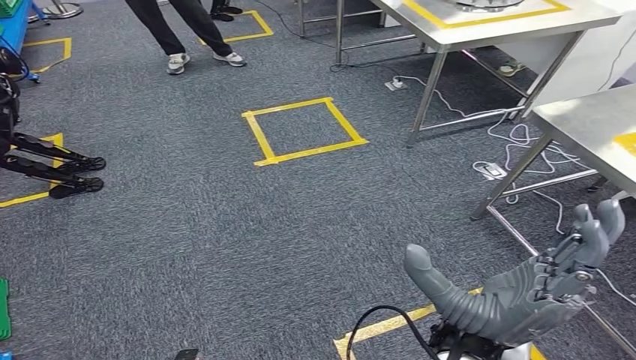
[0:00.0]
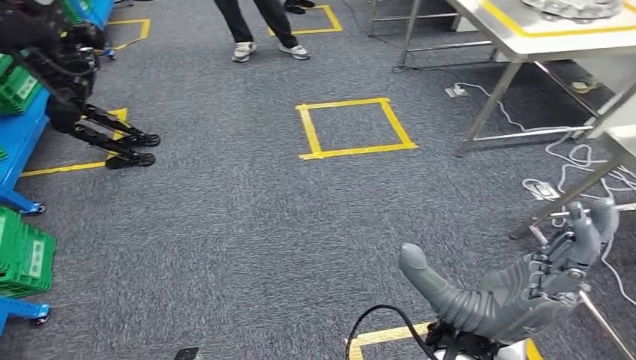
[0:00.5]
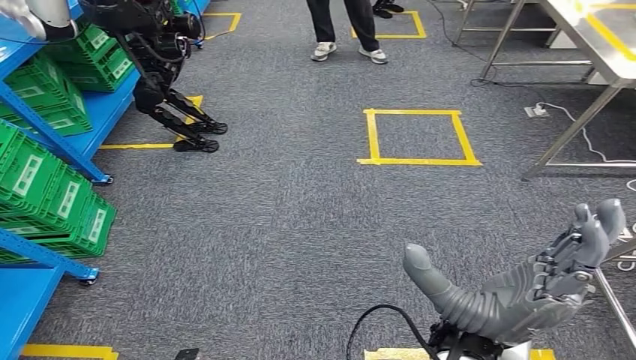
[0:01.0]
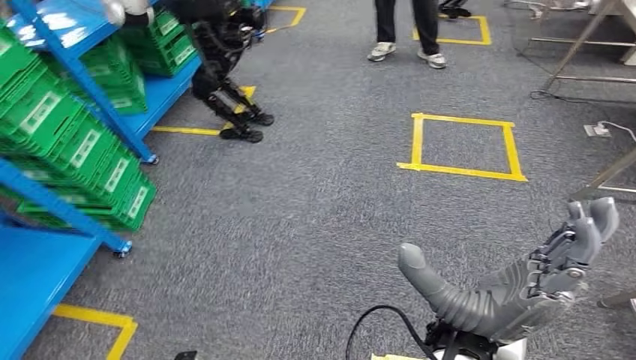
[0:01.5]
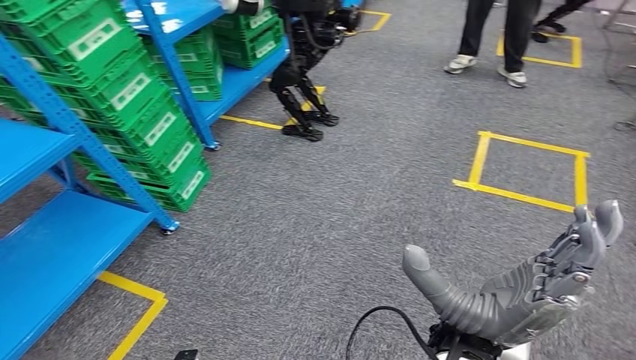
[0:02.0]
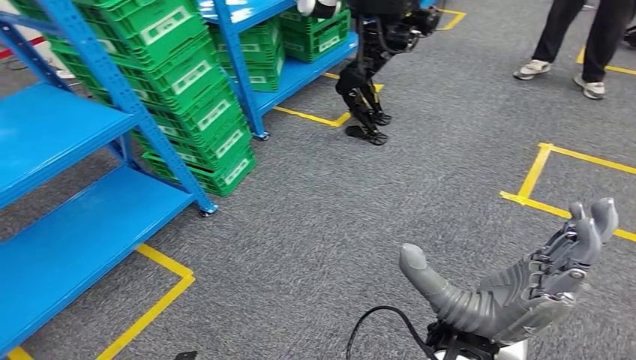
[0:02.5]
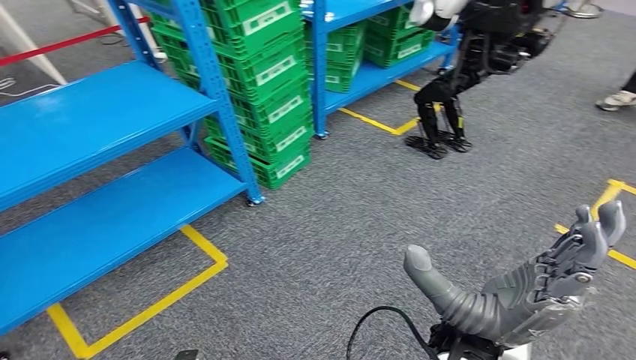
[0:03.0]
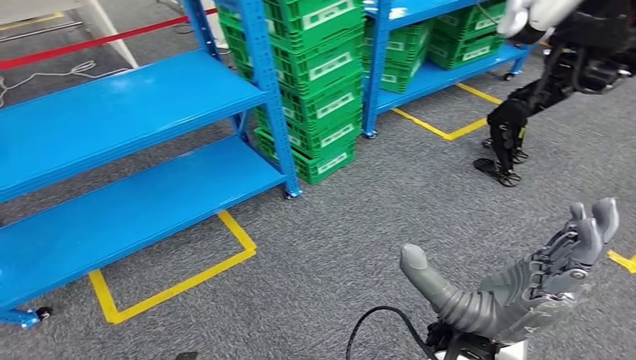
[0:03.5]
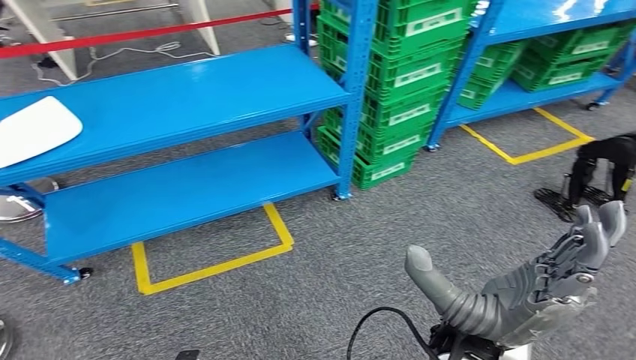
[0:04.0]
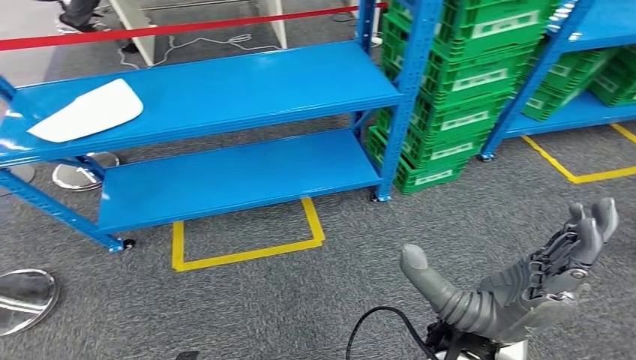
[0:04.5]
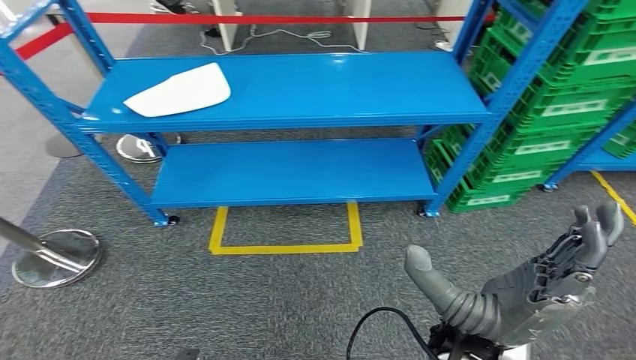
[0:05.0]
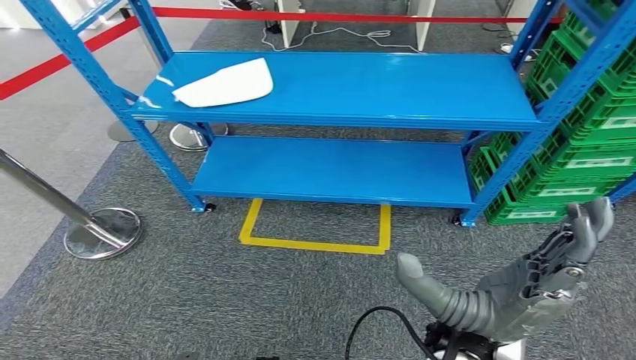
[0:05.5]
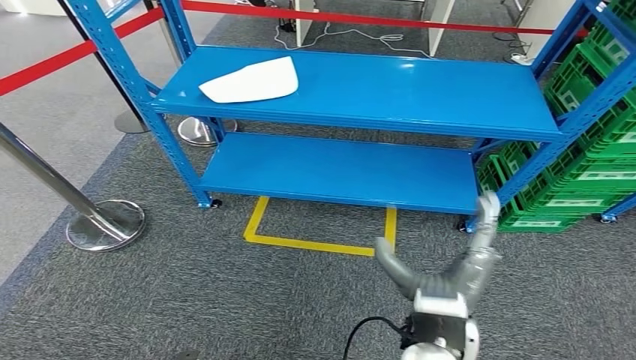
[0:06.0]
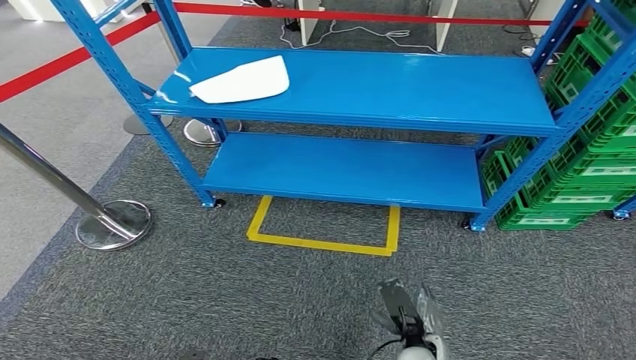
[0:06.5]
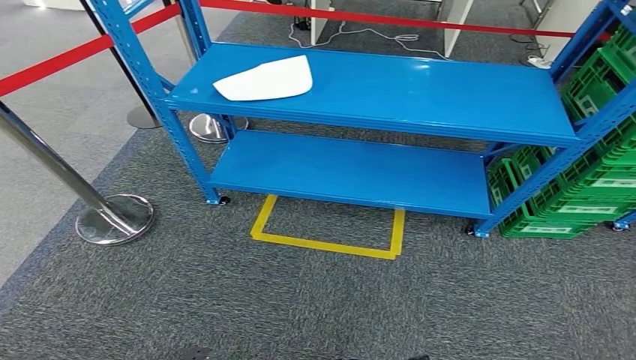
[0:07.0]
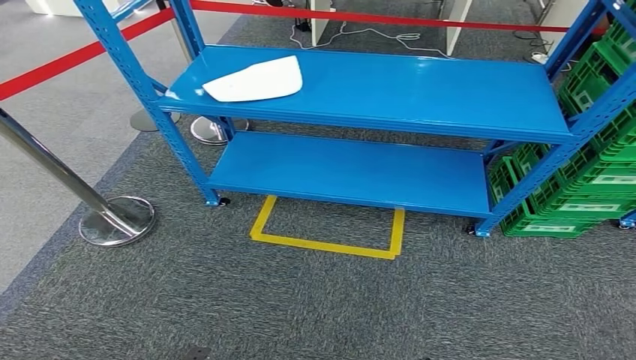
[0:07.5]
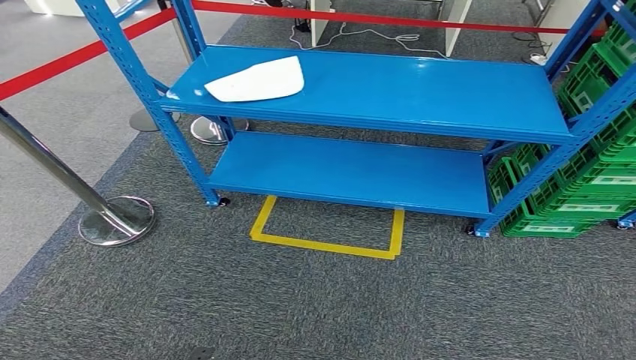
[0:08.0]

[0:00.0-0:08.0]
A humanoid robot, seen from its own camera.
Step, 0:00.0 to 0:08.0: Move to the initial position of the workbench.
